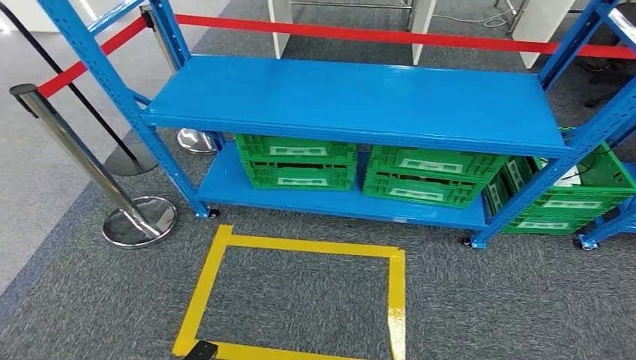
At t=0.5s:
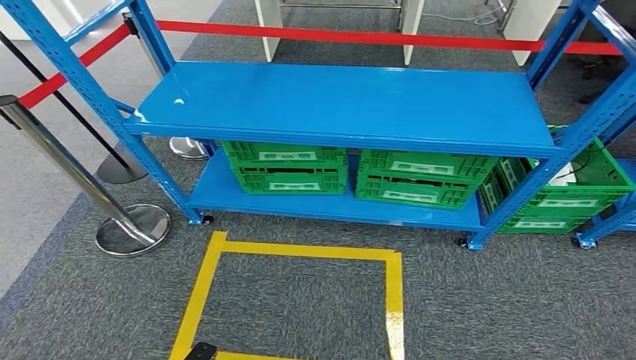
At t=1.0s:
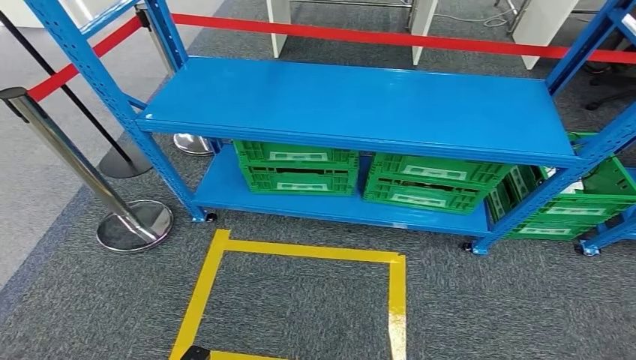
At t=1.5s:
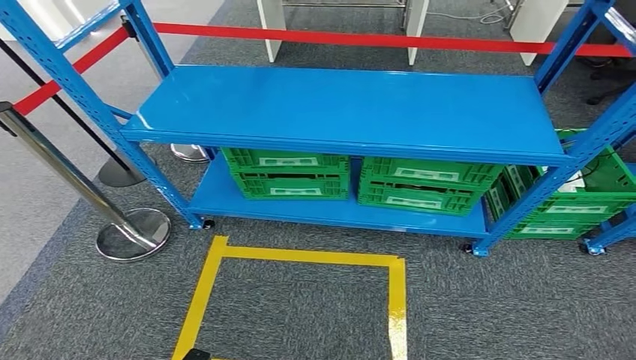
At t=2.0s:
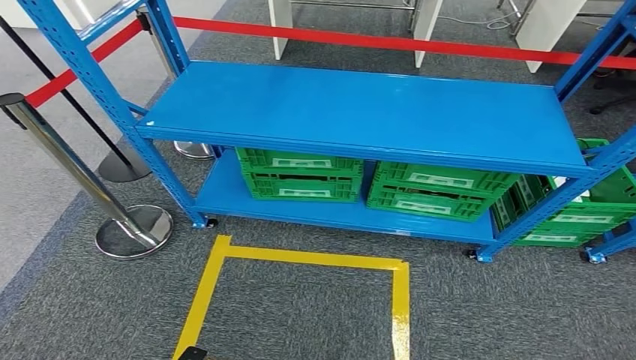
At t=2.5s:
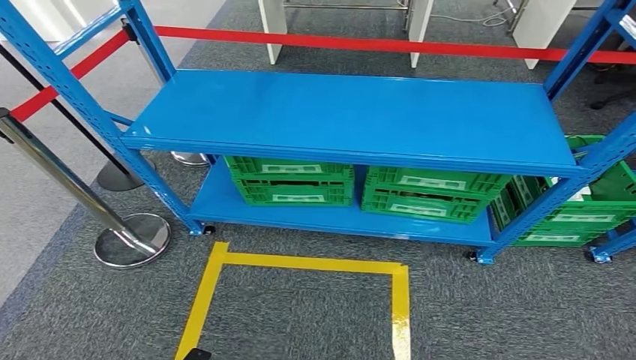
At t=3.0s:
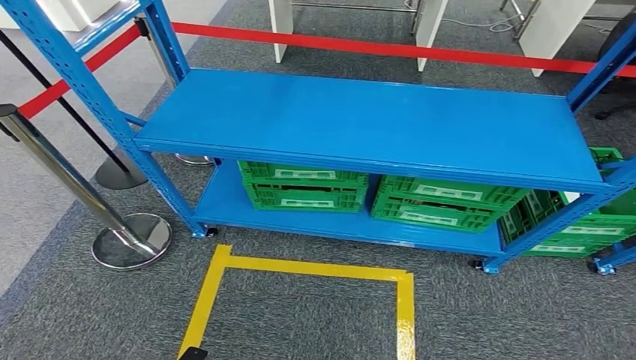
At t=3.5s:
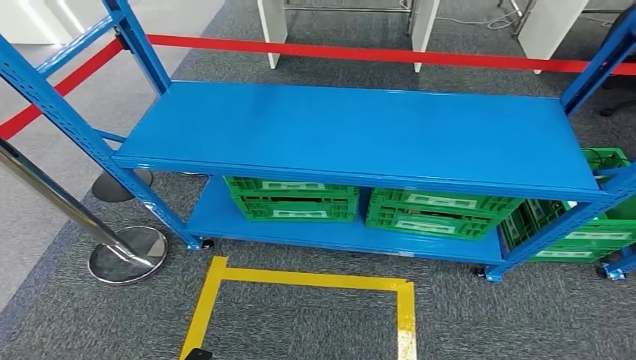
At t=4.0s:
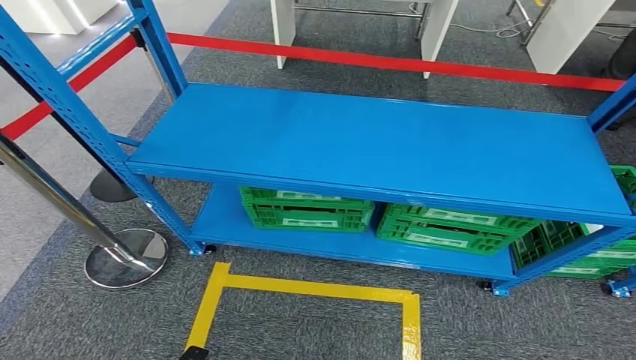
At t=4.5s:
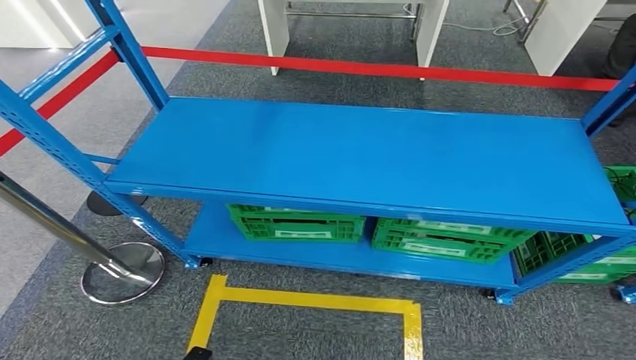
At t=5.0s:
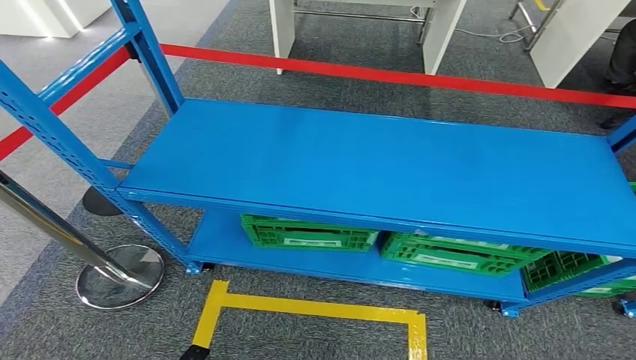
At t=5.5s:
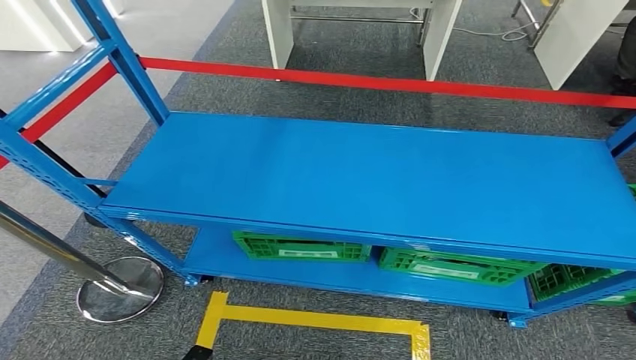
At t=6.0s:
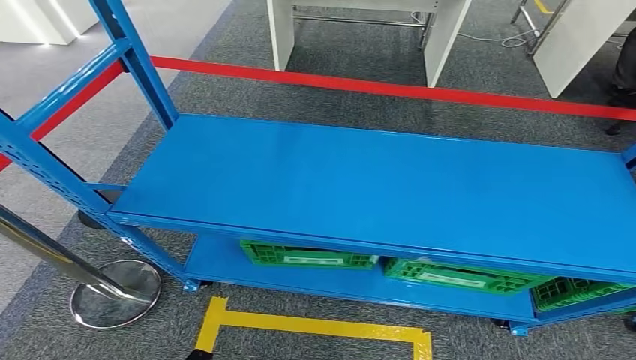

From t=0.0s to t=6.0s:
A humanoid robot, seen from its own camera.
Step, from t=0.0s to t=5.5s: Move to the initial position of the workbench.

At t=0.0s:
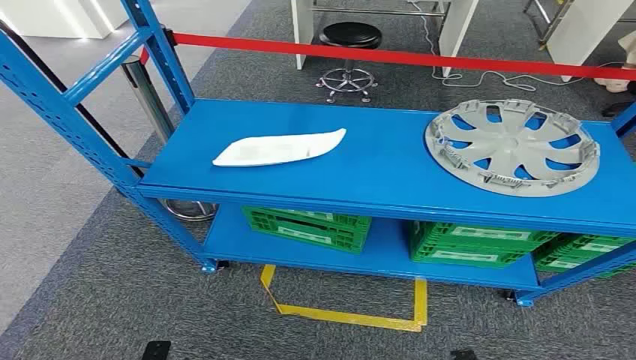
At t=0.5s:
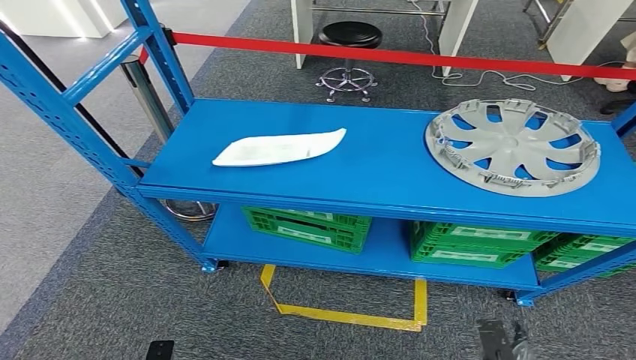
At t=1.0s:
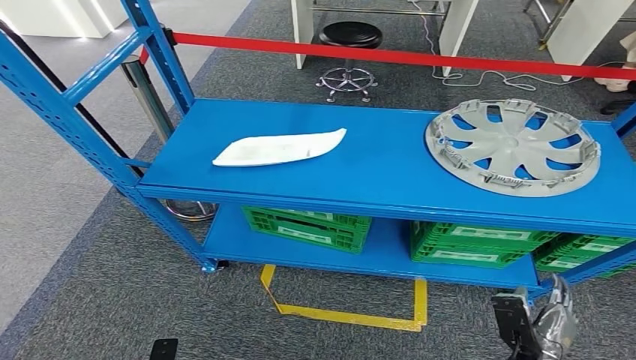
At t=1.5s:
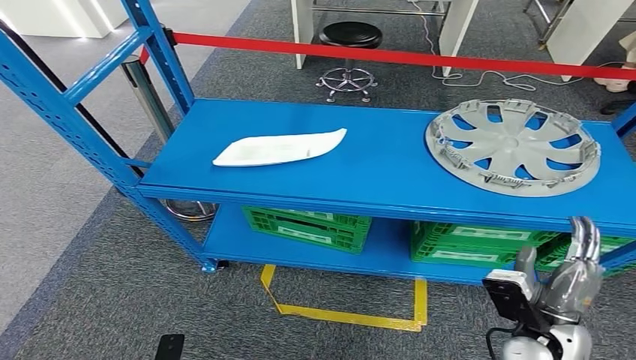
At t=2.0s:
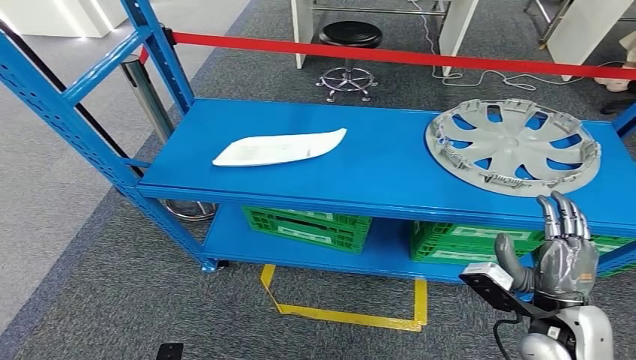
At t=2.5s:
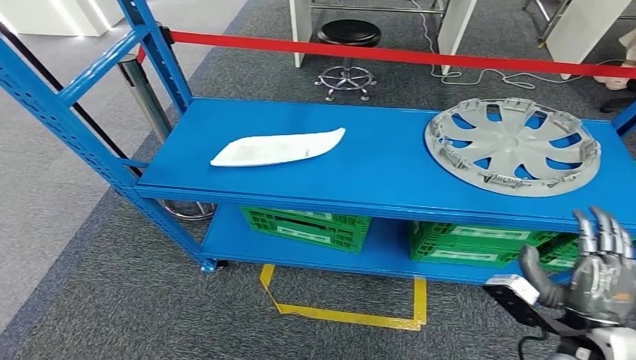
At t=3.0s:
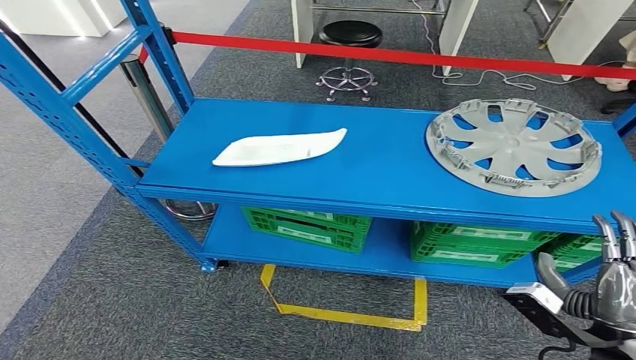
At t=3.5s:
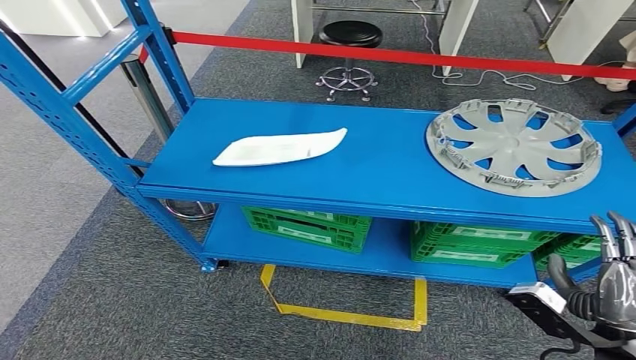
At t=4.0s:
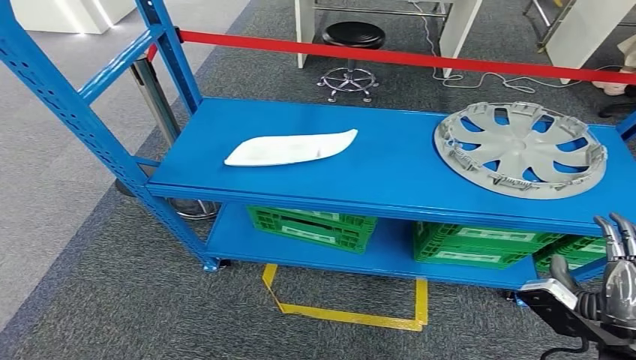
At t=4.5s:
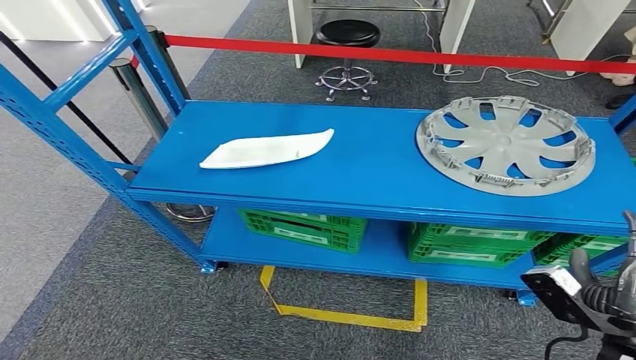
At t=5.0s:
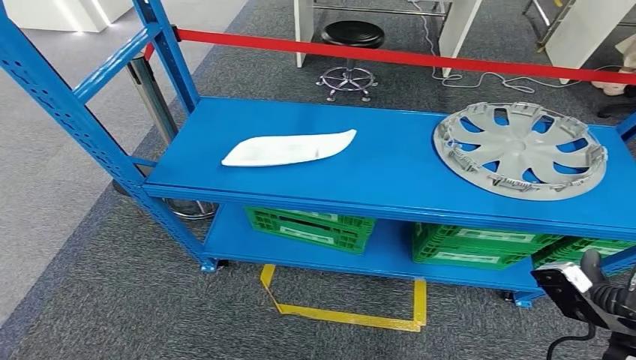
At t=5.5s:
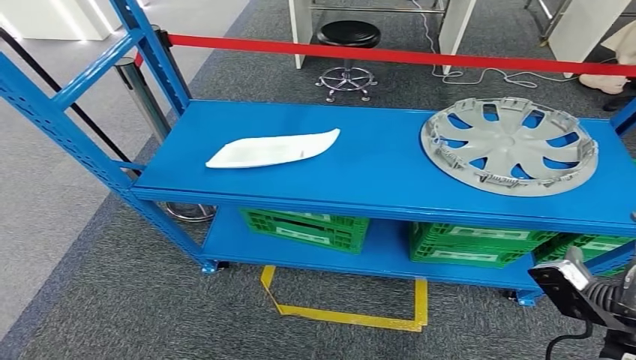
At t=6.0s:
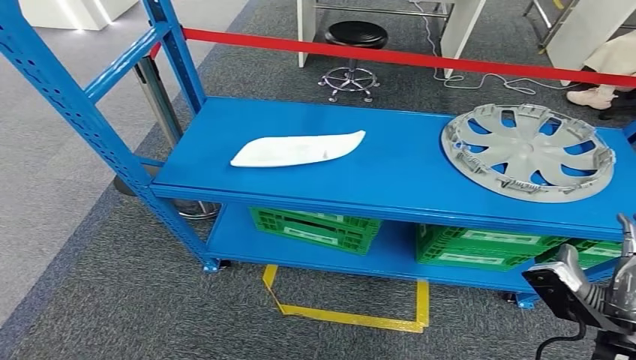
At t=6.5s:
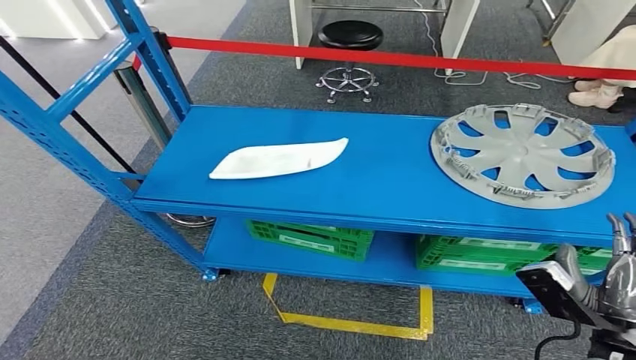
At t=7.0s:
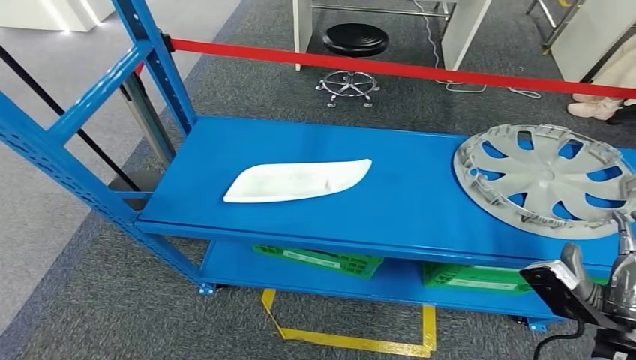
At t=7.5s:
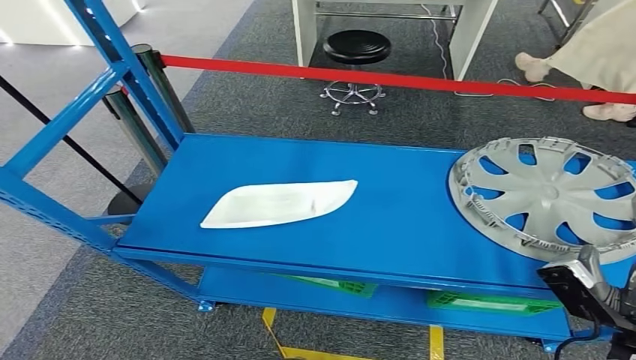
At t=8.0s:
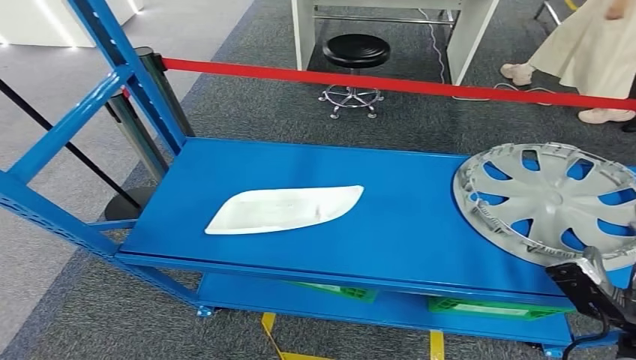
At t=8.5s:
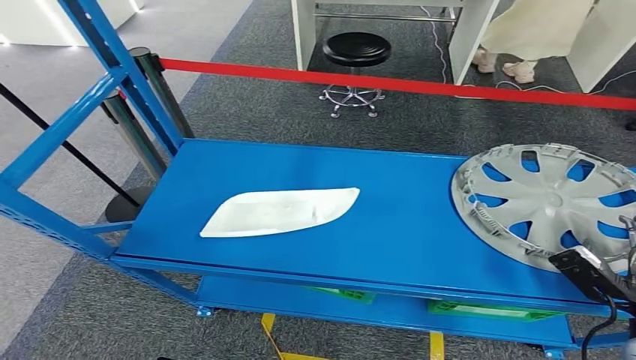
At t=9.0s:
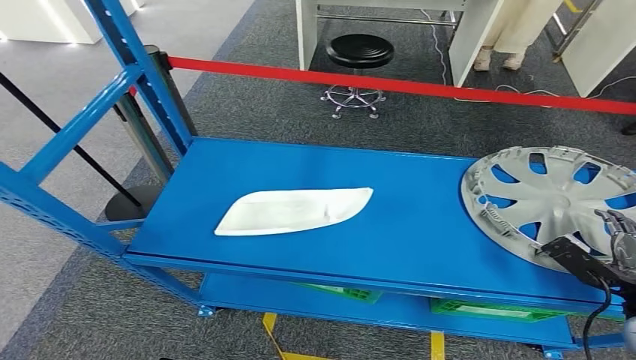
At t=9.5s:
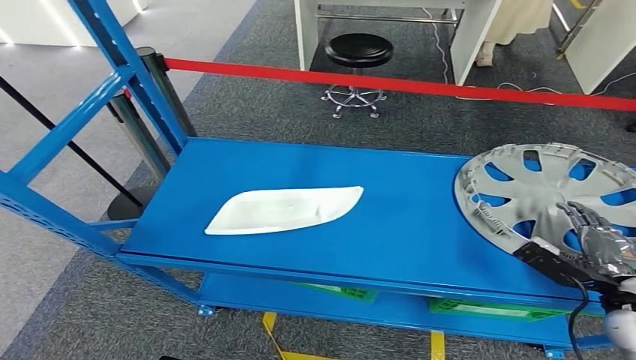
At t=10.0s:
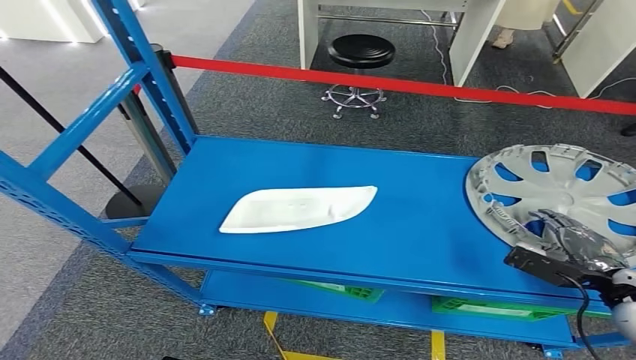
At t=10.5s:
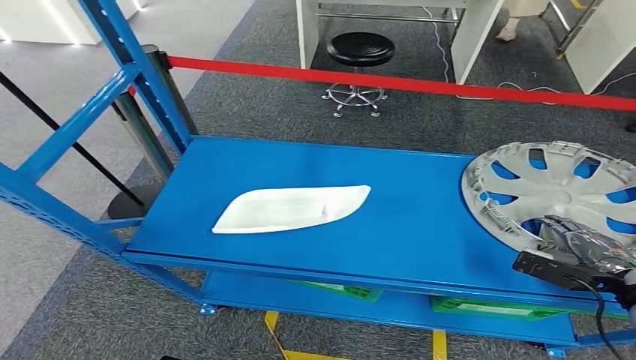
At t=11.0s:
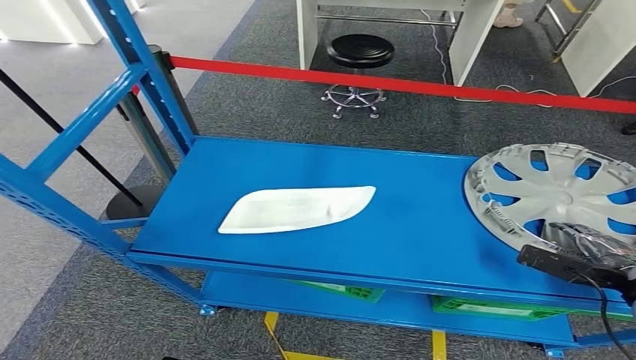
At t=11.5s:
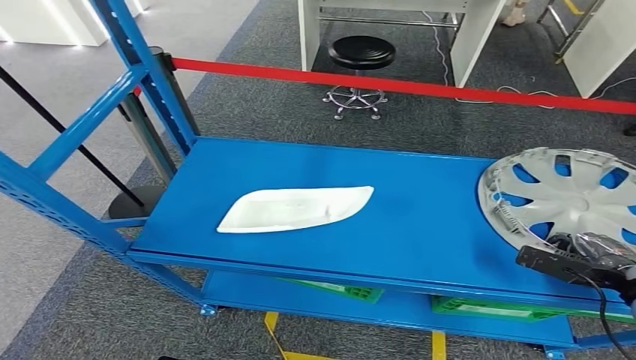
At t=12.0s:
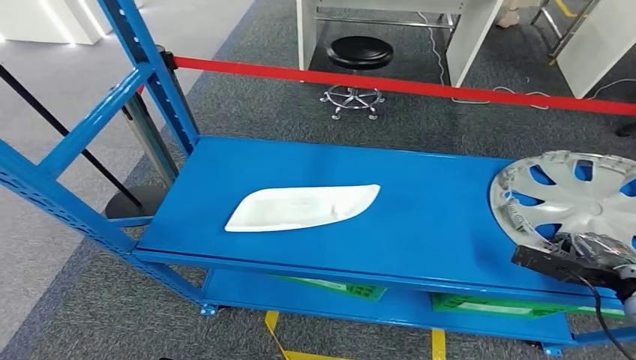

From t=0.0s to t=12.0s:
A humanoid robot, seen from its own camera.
From t=2.0s to t=4.0s: The left hand heads to the left, covering about 5 cm, while the right hand goes roughly 5 cm backward and to the right.
From t=4.0s to t=6.0s: The hands make only small movements.
From t=10.0s to t=12.0s: The hands move only a little.

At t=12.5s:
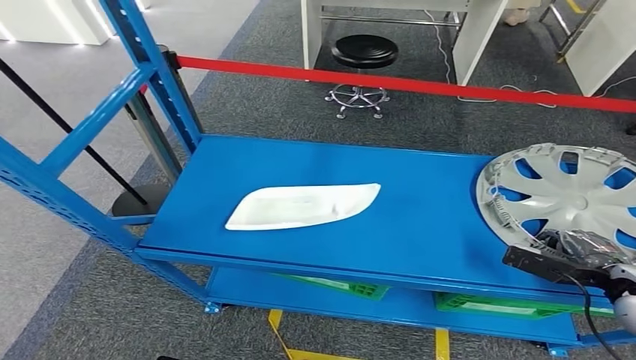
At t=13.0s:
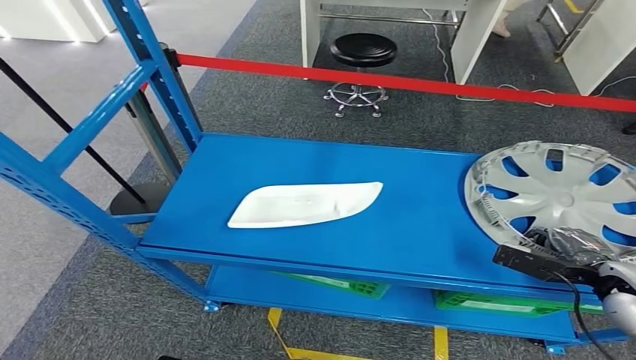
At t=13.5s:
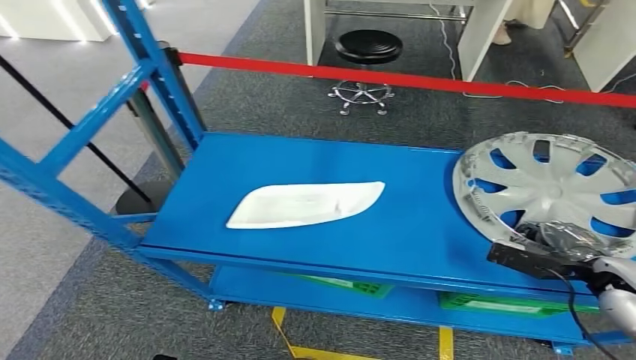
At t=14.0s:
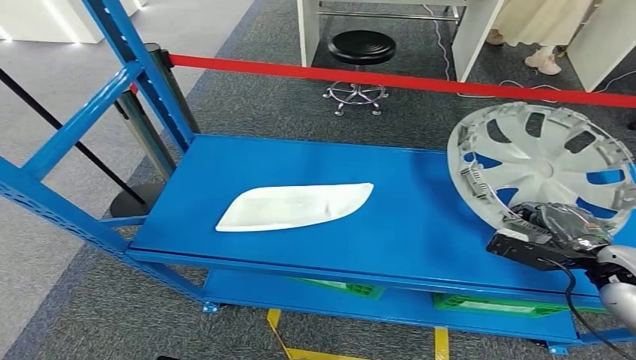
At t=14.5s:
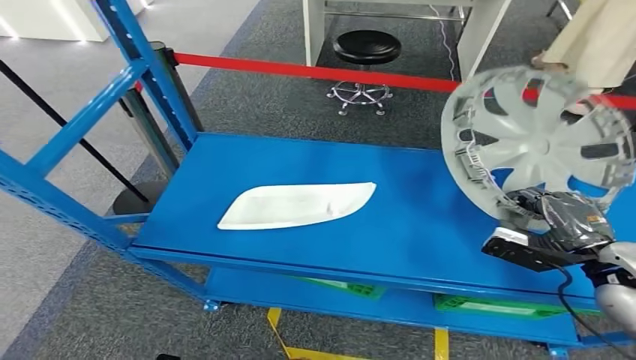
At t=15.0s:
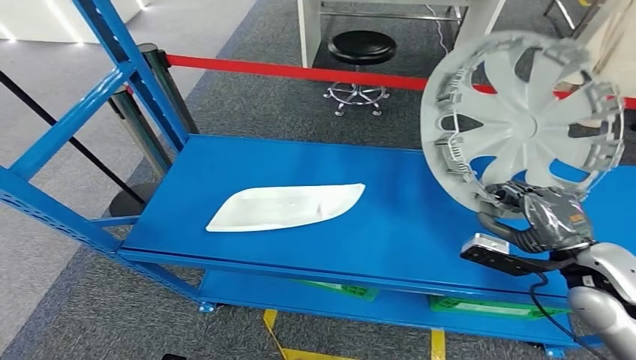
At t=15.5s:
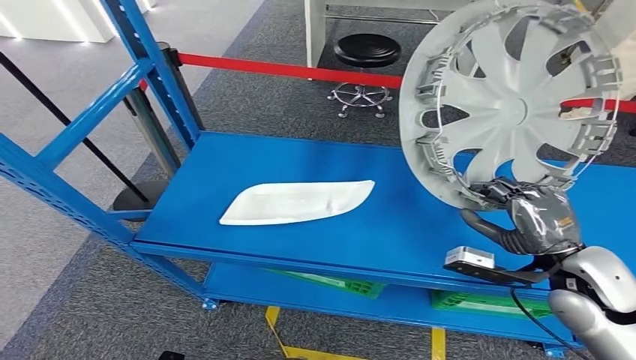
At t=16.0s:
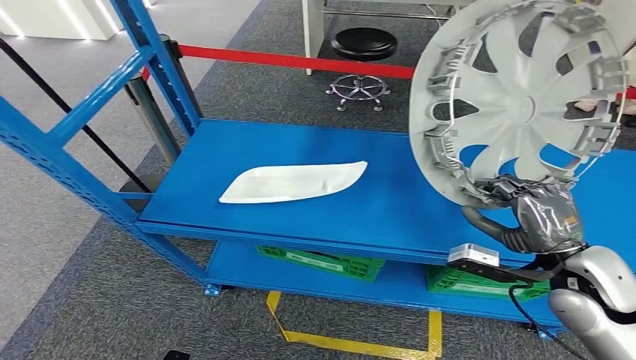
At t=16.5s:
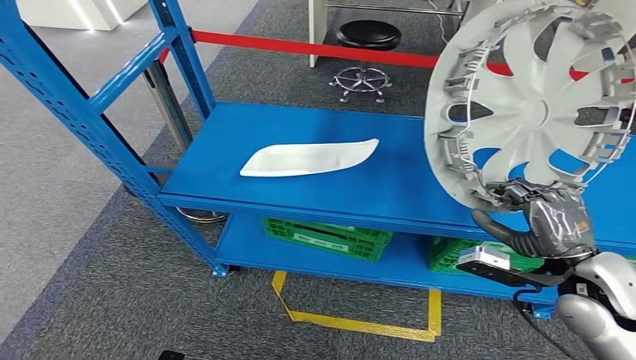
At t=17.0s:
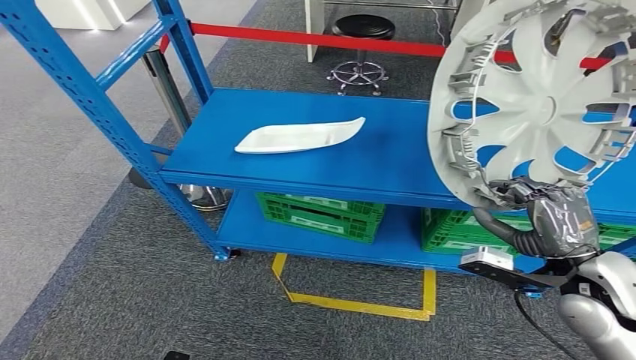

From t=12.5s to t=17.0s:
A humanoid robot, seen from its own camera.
Step, from t=12.5s to t=15.0s: Pick up the small component from the shelf.
